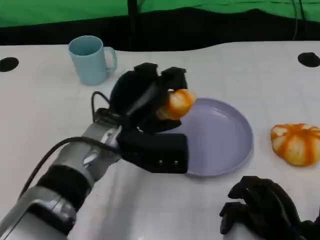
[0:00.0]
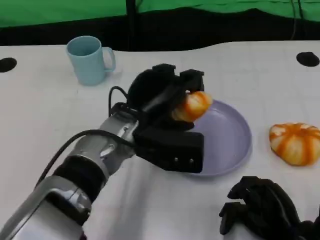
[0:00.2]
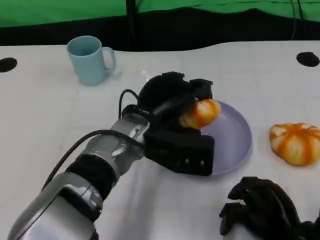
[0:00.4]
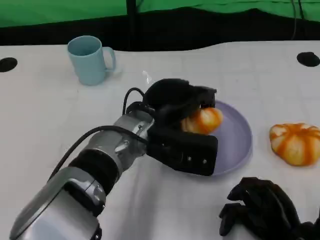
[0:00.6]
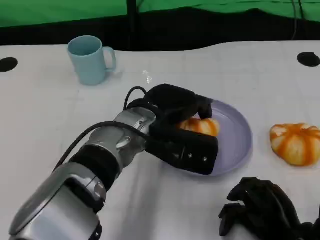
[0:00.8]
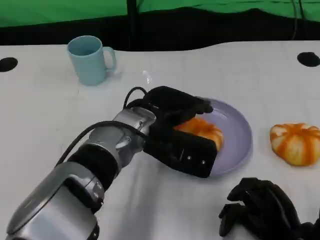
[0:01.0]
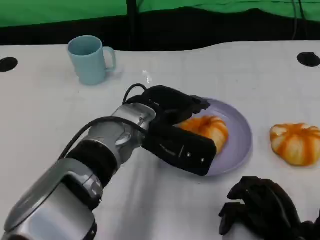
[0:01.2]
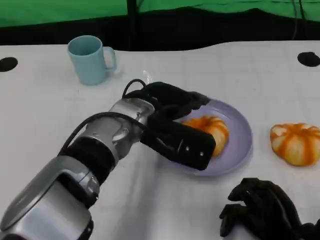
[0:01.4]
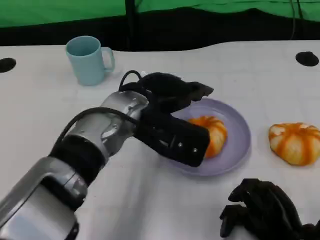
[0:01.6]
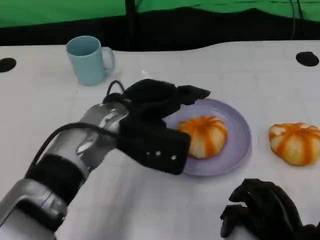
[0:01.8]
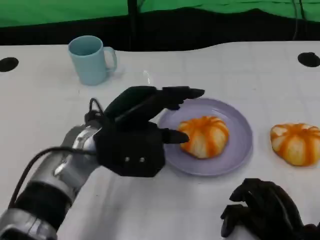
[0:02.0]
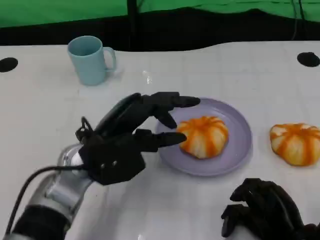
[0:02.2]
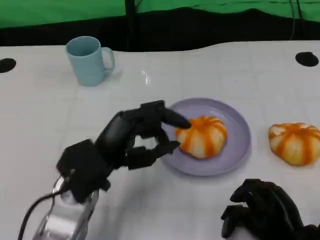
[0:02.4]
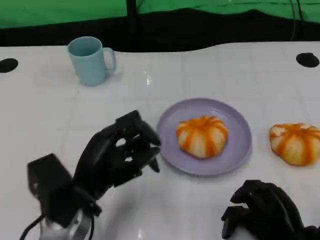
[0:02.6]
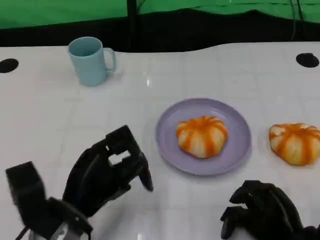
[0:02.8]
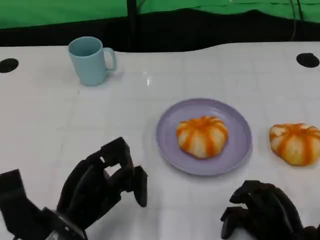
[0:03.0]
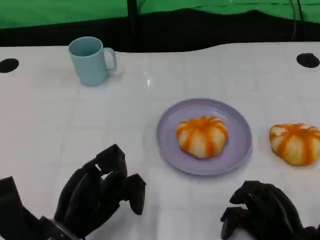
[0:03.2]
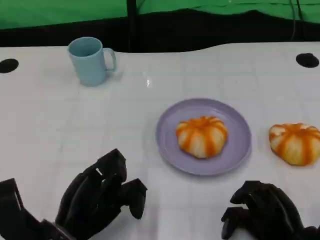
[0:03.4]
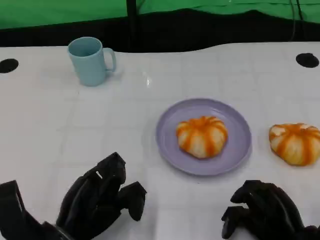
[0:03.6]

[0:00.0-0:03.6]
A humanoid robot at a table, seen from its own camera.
Task of the whole recording: Grasp the bread from the table and place it into the plate.
0:01.8 to 0:03.6: The left hand shifts roughly 20 cm backward, downward and to the left.

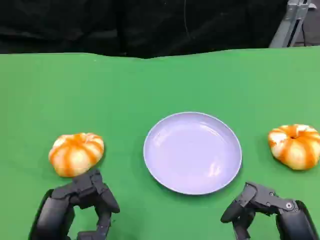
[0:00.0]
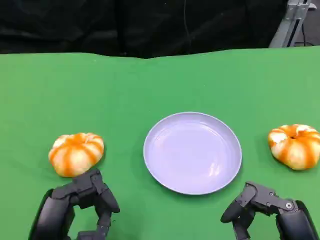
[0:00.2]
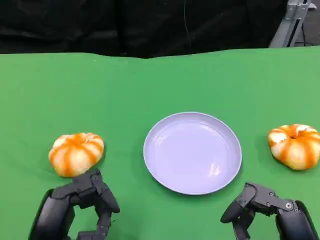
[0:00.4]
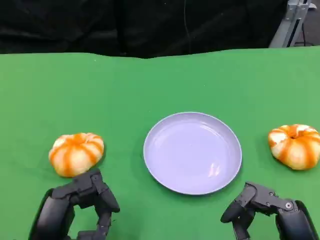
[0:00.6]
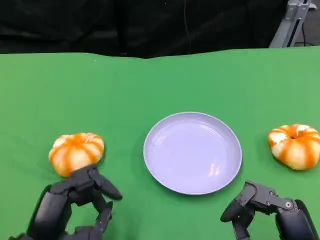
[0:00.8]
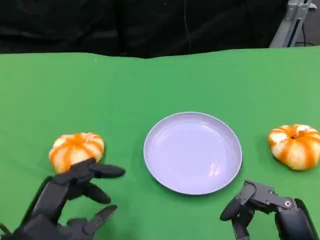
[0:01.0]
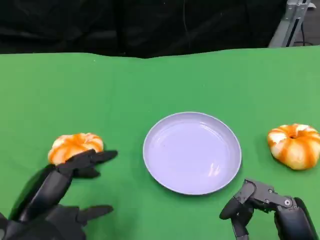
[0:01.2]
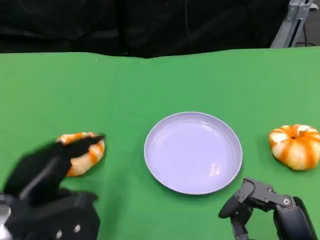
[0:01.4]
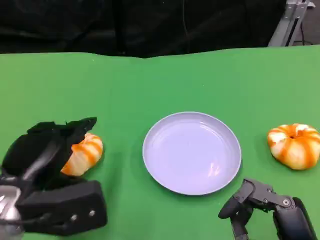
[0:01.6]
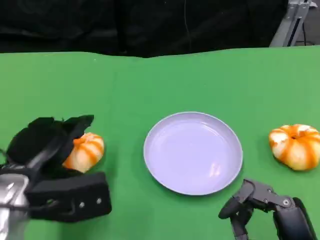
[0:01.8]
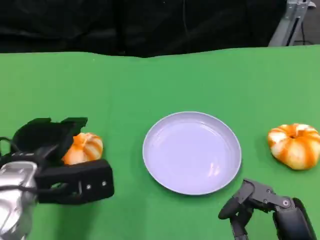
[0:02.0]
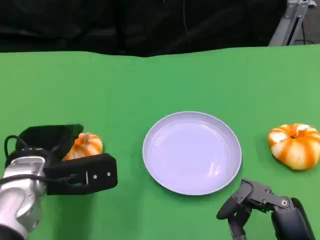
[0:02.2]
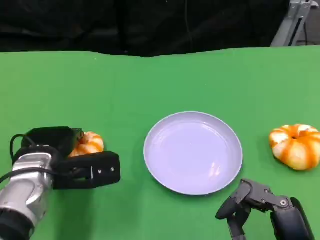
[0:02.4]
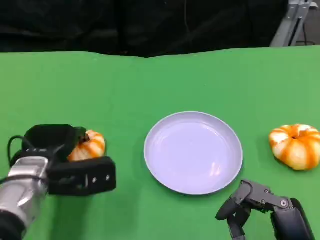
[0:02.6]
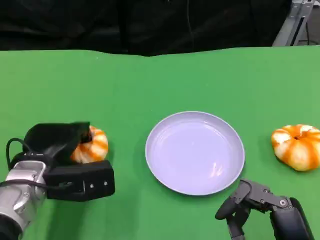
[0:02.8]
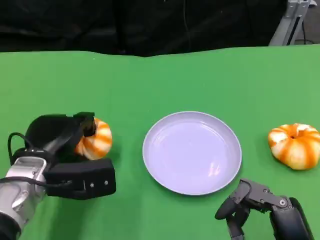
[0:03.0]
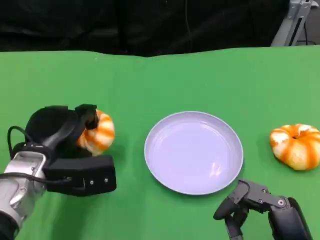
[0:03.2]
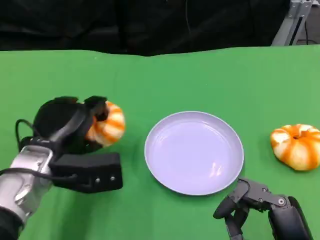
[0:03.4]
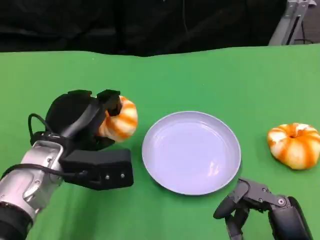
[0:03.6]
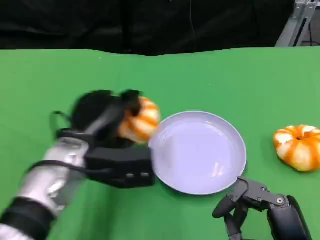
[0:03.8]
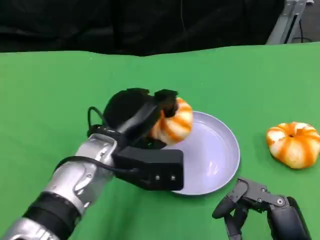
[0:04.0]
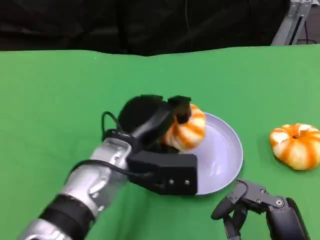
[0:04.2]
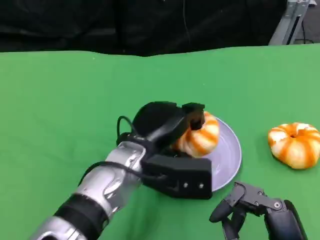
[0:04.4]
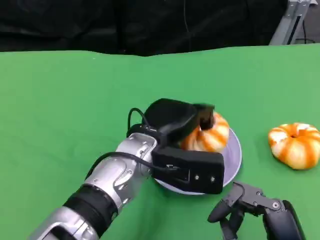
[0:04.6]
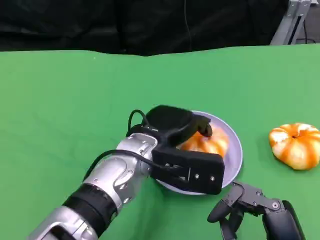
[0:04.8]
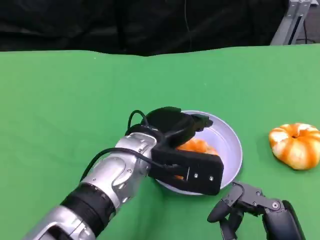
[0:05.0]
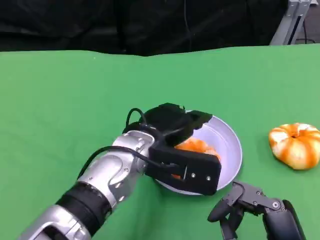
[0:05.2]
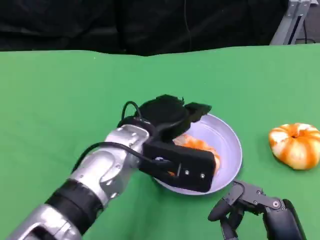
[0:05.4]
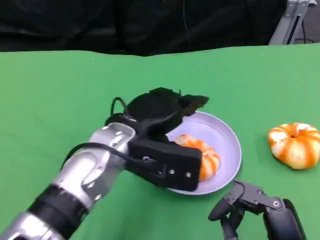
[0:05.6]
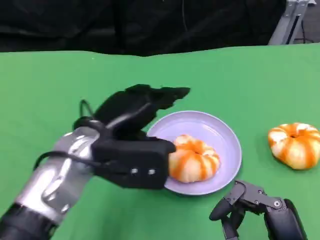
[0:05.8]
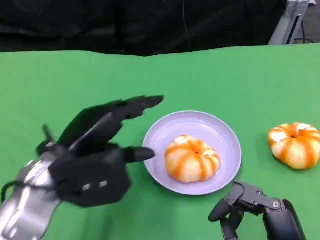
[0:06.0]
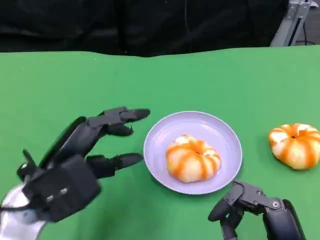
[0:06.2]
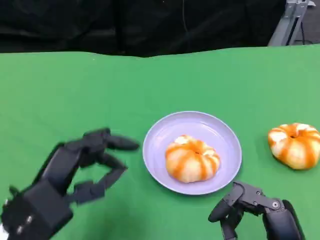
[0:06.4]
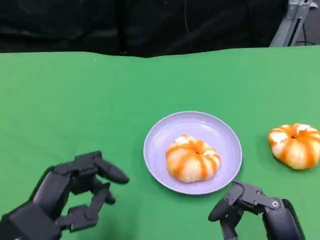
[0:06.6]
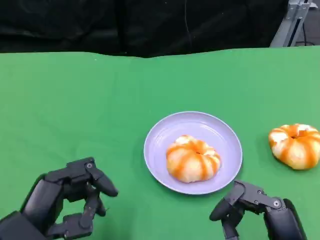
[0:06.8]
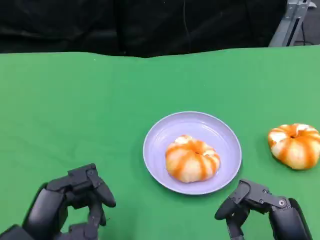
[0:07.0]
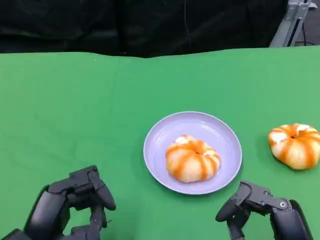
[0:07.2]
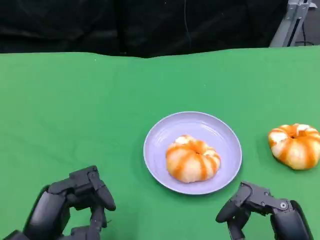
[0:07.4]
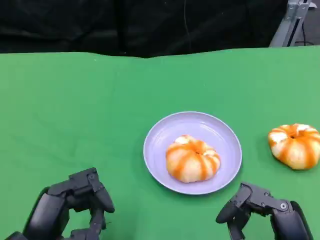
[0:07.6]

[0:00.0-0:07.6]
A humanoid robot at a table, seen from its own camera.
Task of the whole recording: Grasp the bread from the table and place it into the plate.
0:00.0 to 0:01.6: The left hand is displaced forward and upward by roughly 10 cm.
0:01.6 to 0:03.0: The left hand moves forward, about 5 cm.
0:03.0 to 0:04.6: The left hand is displaced to the right by some 15 cm.
0:04.6 to 0:06.0: The left hand goes some 15 cm to the left.
0:06.0 to 0:07.6: The left hand moves backward and downward, some 10 cm.

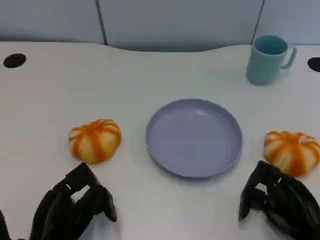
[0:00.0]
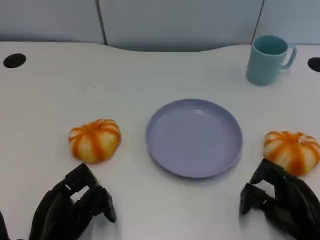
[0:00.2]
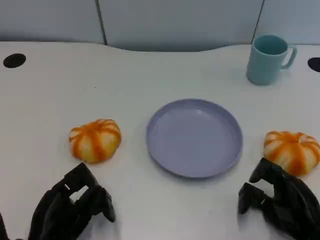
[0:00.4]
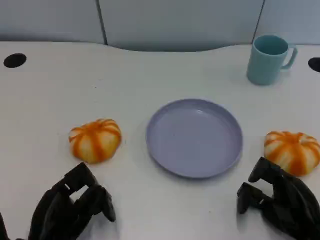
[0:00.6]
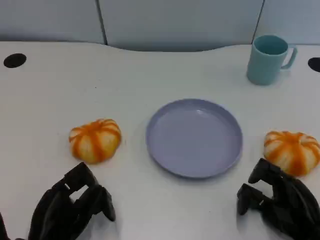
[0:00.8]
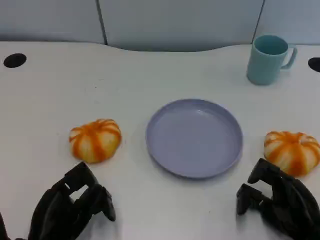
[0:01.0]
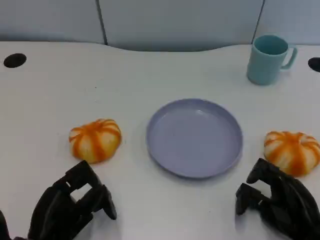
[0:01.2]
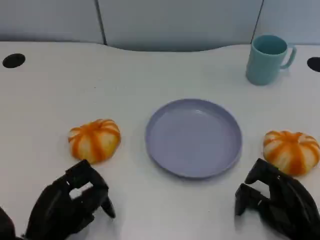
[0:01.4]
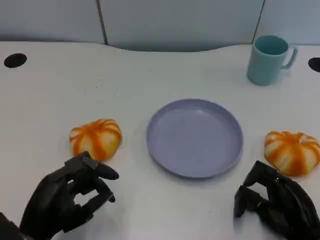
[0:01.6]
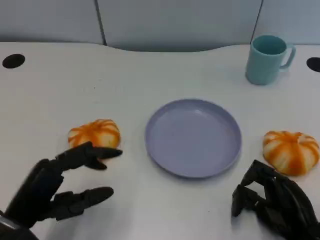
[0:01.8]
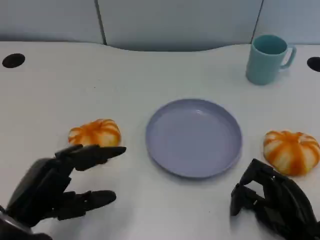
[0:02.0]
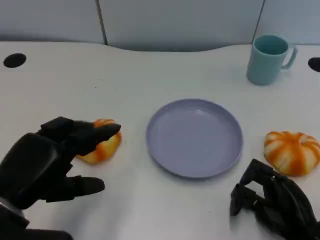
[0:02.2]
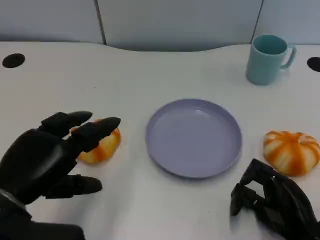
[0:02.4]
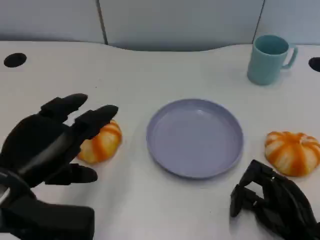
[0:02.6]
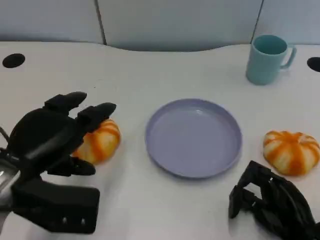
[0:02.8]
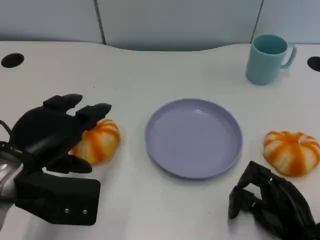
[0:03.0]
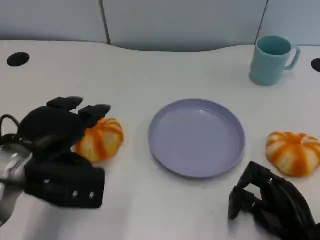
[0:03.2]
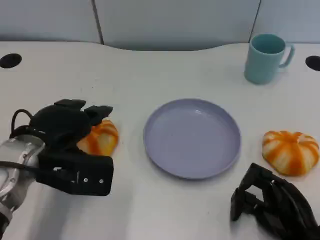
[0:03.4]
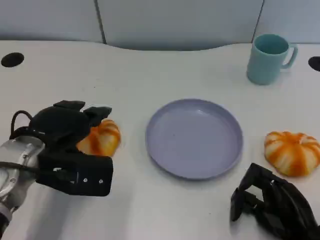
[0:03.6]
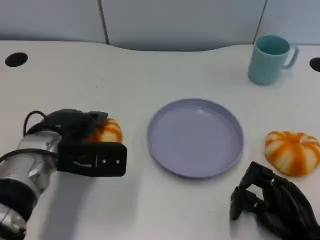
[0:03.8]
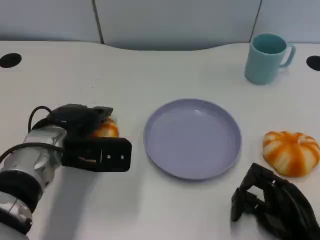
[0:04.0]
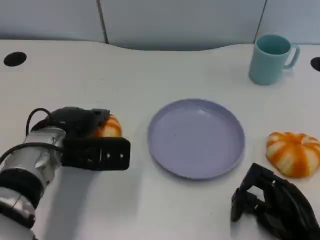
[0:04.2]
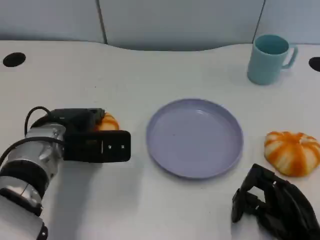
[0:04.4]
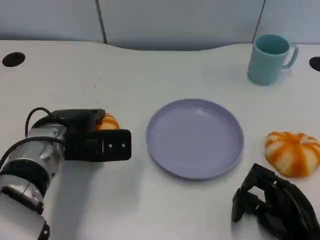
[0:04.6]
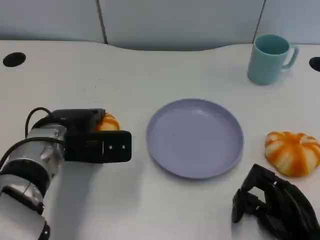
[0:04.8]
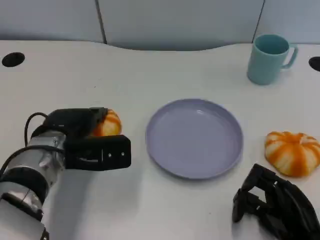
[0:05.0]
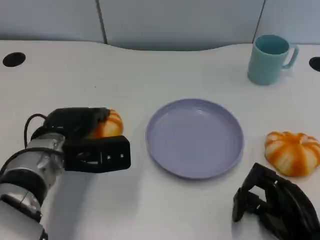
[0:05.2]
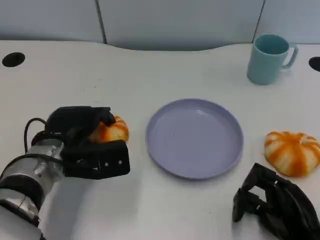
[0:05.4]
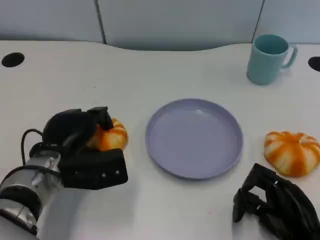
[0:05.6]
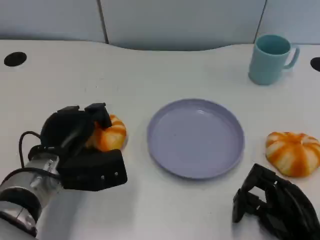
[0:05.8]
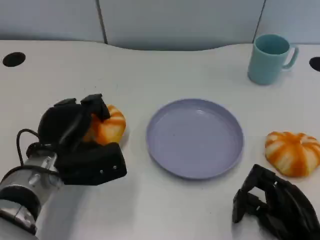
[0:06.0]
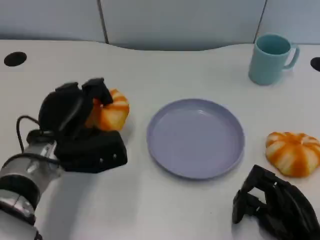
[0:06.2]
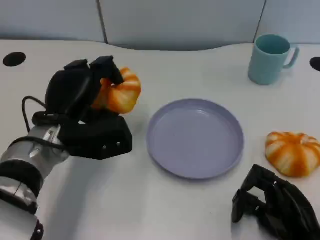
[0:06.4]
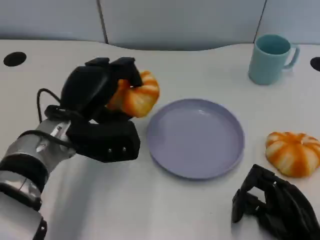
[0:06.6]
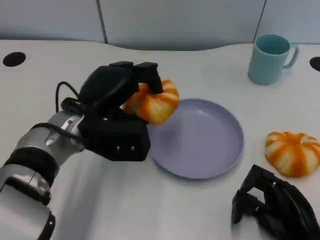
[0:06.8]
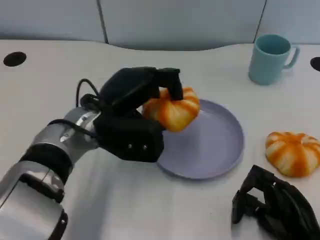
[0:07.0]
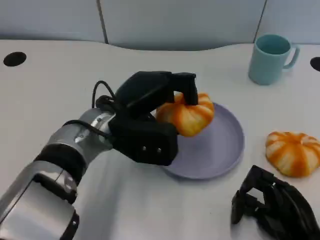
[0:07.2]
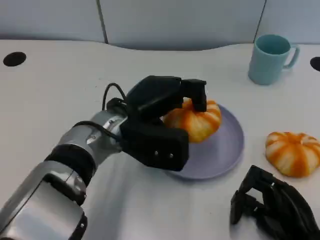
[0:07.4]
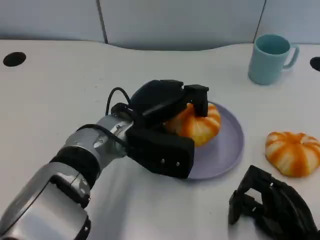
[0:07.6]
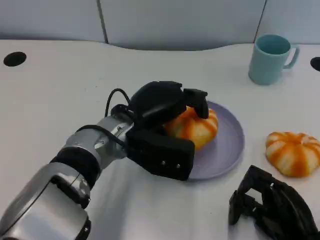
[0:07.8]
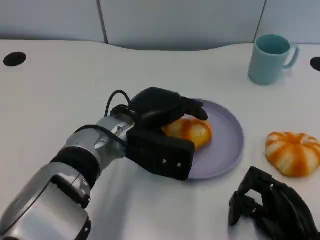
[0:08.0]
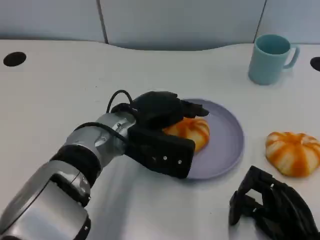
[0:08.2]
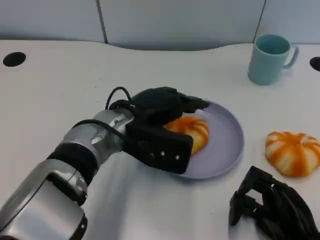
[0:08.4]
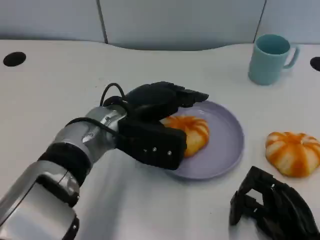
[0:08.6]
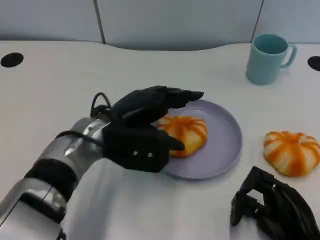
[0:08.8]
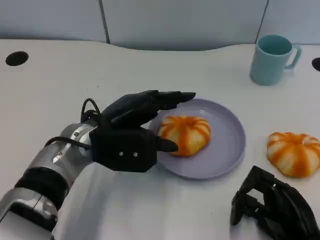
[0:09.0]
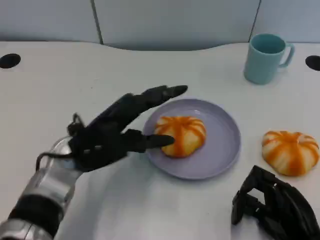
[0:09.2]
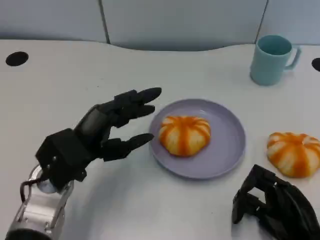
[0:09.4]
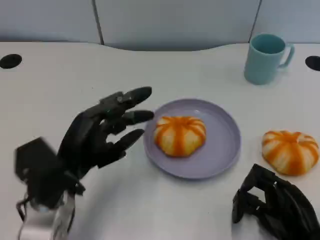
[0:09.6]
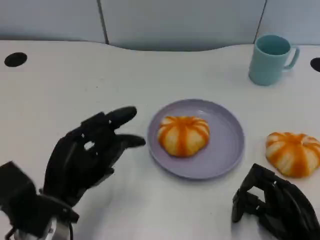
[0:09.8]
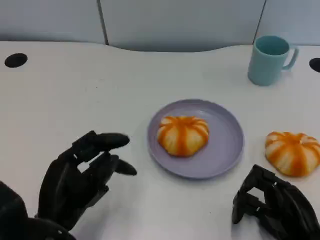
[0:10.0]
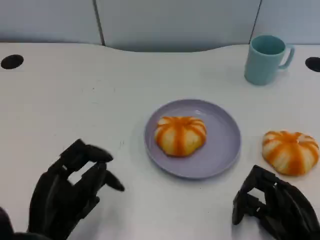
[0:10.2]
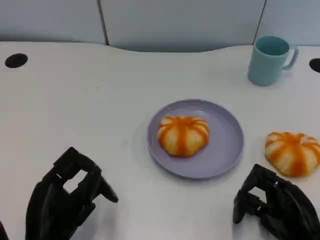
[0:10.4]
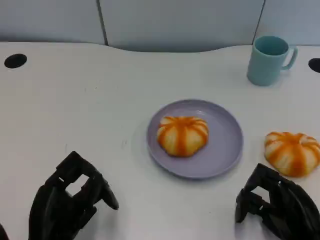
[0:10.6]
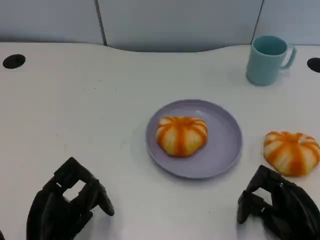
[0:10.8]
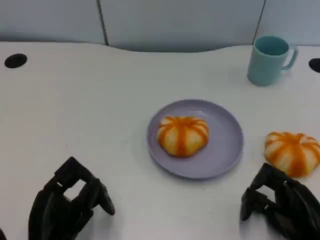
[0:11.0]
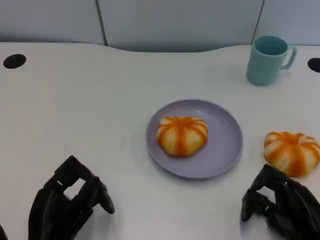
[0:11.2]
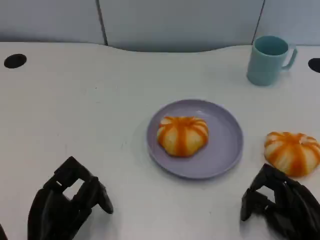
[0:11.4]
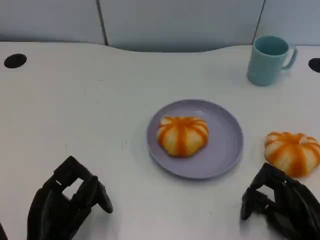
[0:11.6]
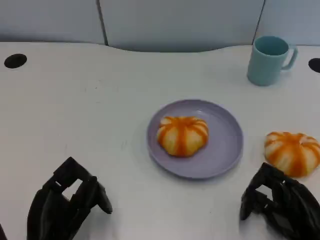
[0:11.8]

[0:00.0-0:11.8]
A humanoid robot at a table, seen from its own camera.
Task of the whole recording: Grasp the bread from the table and place it into the plate.
0:01.4 to 0:03.0: The left hand travels upward and forward by about 10 cm.
0:03.0 to 0:04.4: The left hand heads forward and to the right, covering roughly 10 cm.
0:06.0 to 0:07.4: The left hand goes roughly 10 cm to the right and upward.
0:07.4 to 0:08.8: The hands stay close to where they were, moving slightly.
0:08.8 to 0:10.4: The left hand shifts roughly 20 cm backward, to the left and downward.
0:10.4 to 0:11.8: The hands make only small movements.
